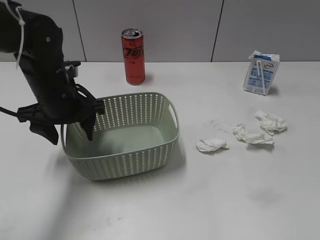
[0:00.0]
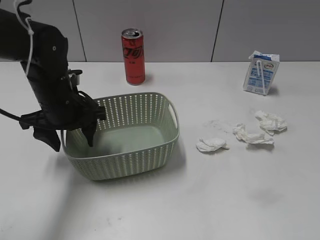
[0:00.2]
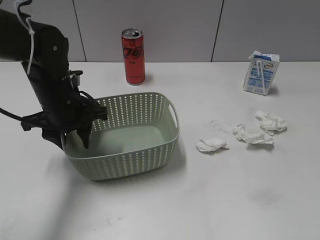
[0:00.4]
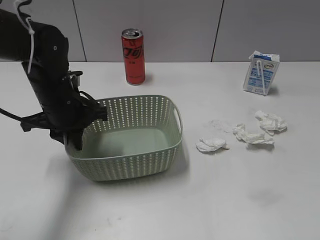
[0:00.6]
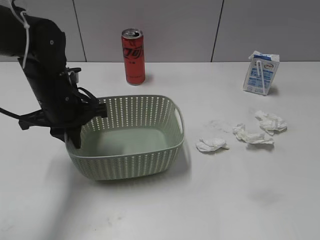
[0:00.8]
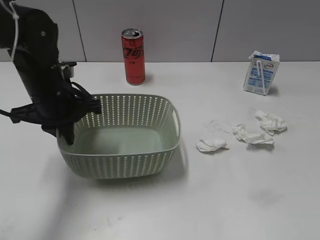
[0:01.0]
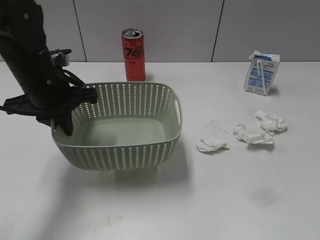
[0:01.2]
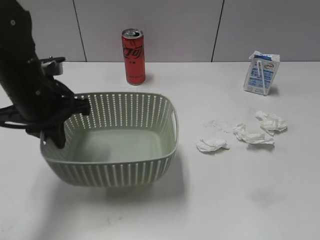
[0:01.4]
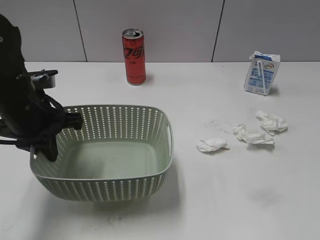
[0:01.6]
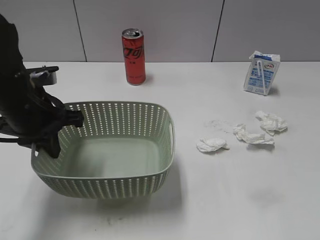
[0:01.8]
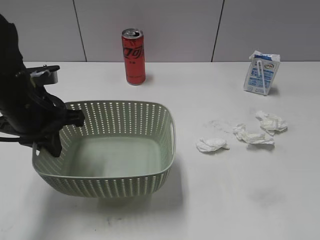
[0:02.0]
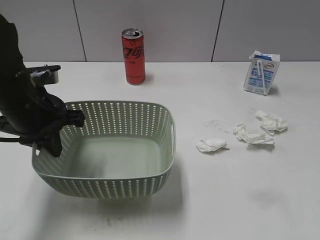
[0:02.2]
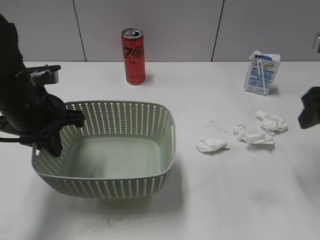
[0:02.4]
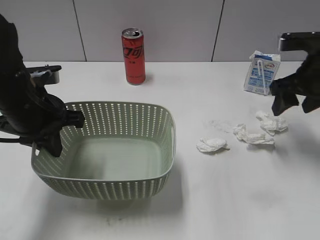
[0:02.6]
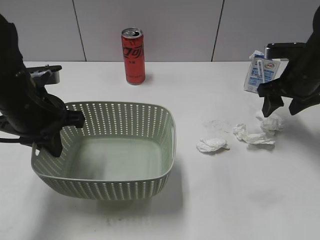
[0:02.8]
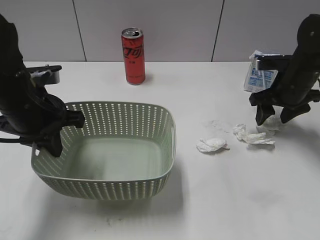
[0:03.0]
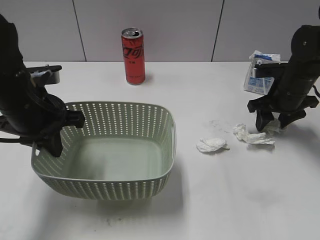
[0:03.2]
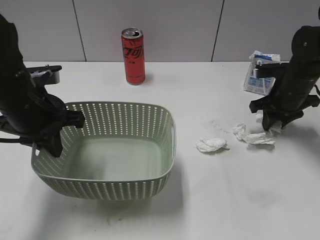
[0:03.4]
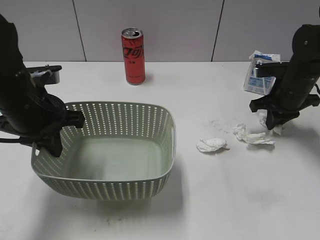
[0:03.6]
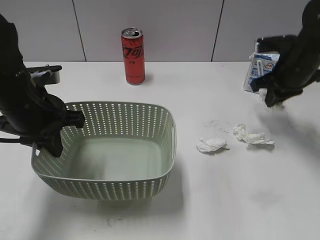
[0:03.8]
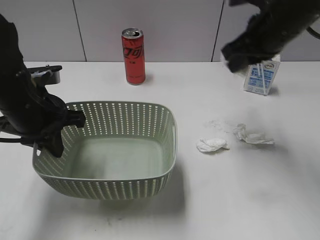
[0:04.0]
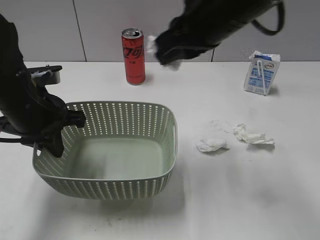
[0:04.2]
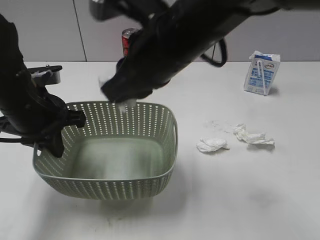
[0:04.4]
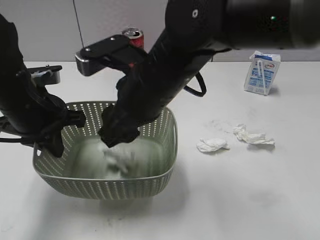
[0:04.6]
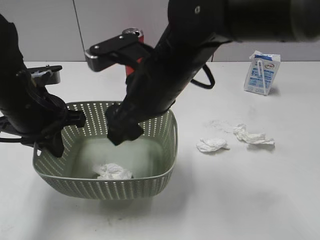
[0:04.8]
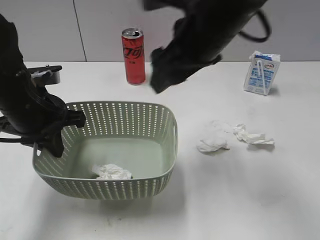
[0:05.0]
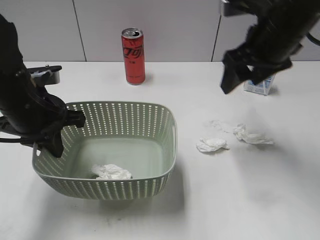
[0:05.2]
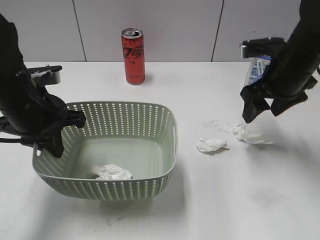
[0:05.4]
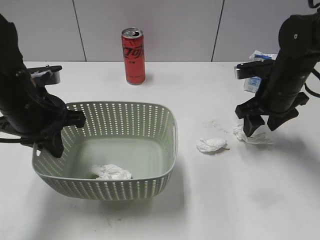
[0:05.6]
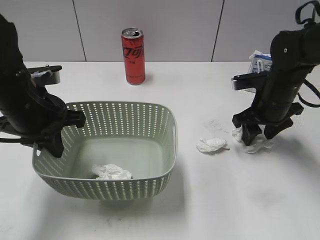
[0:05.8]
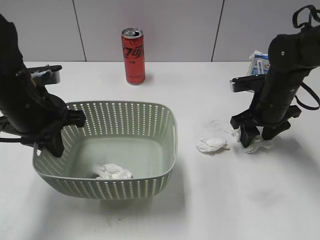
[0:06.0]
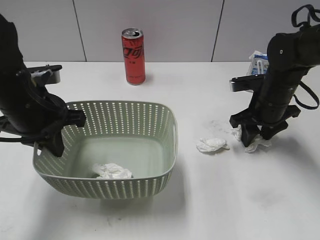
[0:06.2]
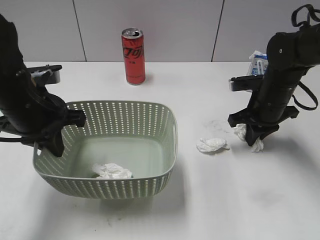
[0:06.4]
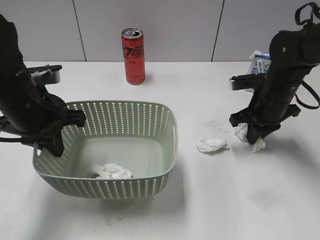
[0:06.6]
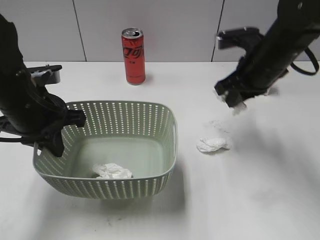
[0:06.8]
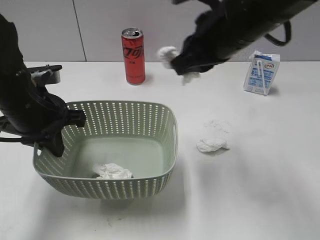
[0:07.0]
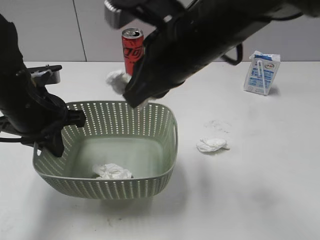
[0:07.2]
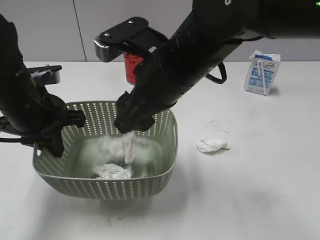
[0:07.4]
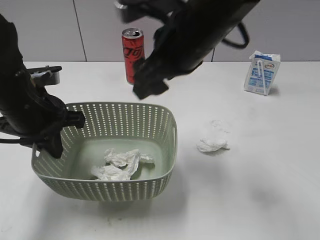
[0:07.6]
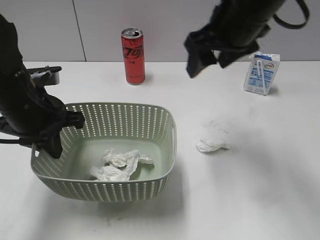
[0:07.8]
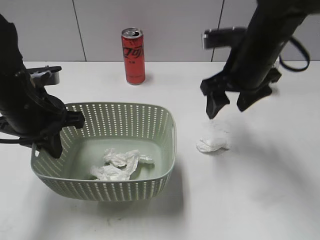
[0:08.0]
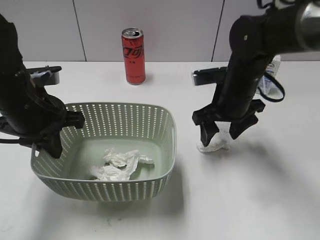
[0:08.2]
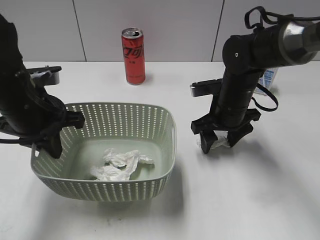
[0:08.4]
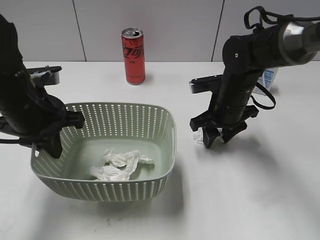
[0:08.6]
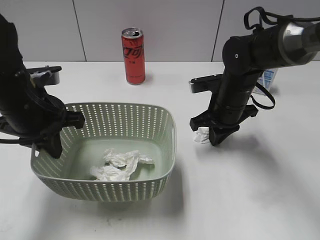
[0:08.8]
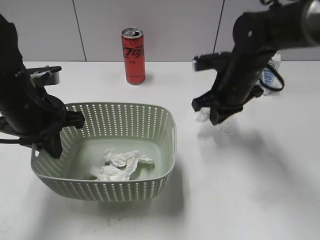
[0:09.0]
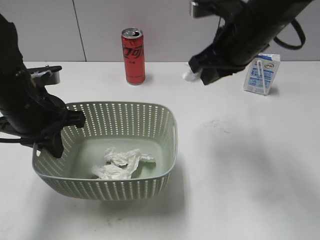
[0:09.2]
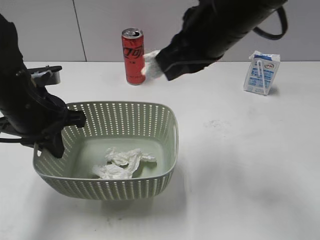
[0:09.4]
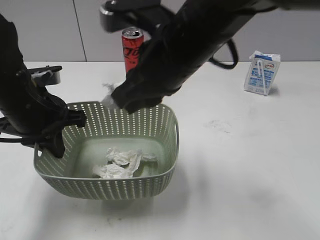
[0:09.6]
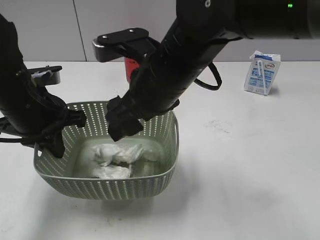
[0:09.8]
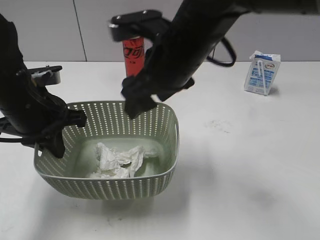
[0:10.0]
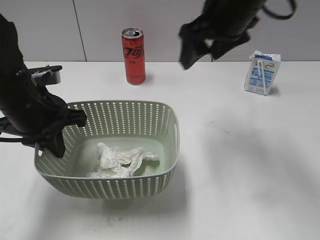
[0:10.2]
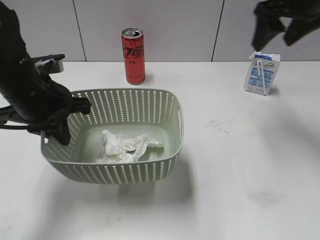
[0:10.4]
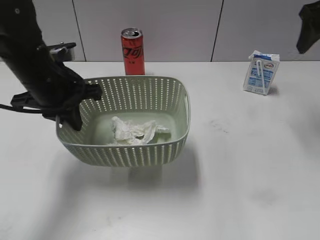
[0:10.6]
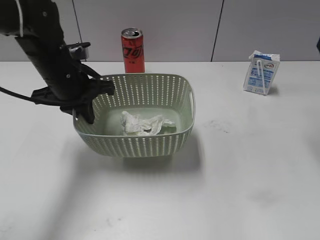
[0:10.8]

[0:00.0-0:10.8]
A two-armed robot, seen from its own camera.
Step, 0:00.0 to 0:00.8: Grasp the basket with left gripper.
Step, 0:01.0 to 0:01.8: Lift the basket with left gripper.
Step, 0:02.0 to 0:03.6: Grasp the waste paper with right gripper.
Step, 0:03.8 to 0:04.8: Place the waste paper in the basket with right gripper.
Step, 0:05.0 to 0:06.4: Grasp the waste paper with right gripper.
Step, 0:06.6 to 0:07.4: Place the waste paper in the basket with right gripper.
Step, 0:07.6 to 0:08.8: Grasp the waste paper with right gripper.
Step, 0:09.0 to 0:10.0: Place the waste paper in the basket with right gripper.
0:00.0 to 0:01.6: The left gripper travels backward by roughly 5 cm, and closes its fingers.
0:01.6 to 0:03.0: The right gripper goes about 40 cm forward.
0:03.0 to 0:04.6: The right gripper shifts approximately 30 cm to the left and backward, and closes and opens again.
0:04.6 to 0:06.2: The right gripper moves to the right, downward and forward, roughly 25 cm, and opens, then closes again.
0:06.2 to 0:07.8: The right gripper heads upward and to the left, covering some 20 cm, and closes, then opens again.
0:07.8 to 0:09.2: The right gripper goes downward and returns, roughly 20 cm each way, and closes its fingers.
0:09.2 to 0:10.8: The left gripper heads forward, covering approximately 5 cm, while the right gripper moves to the right and upward, roughly 20 cm, and opens its fingers.

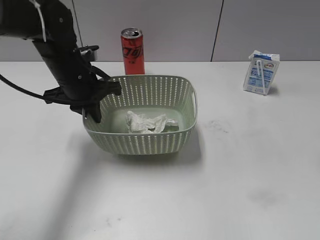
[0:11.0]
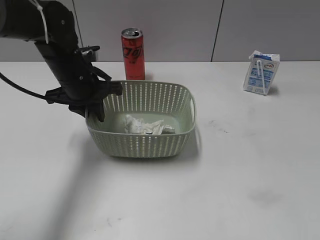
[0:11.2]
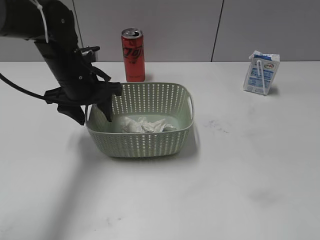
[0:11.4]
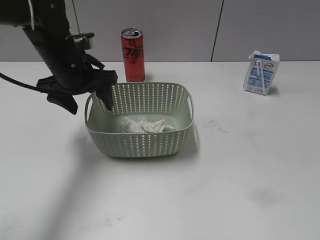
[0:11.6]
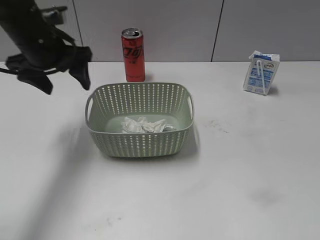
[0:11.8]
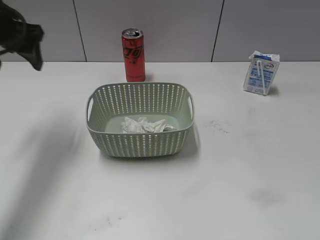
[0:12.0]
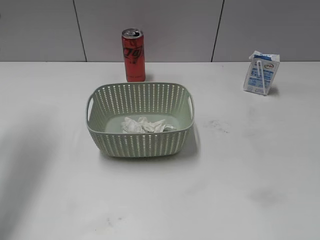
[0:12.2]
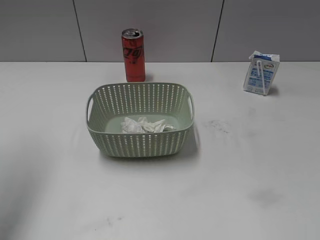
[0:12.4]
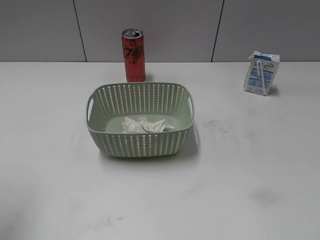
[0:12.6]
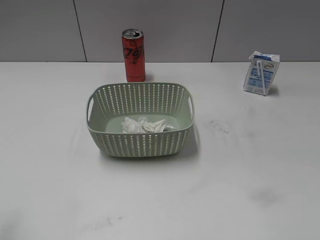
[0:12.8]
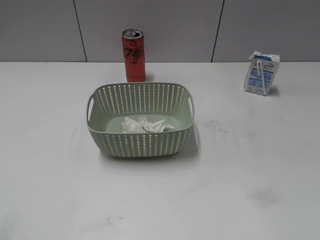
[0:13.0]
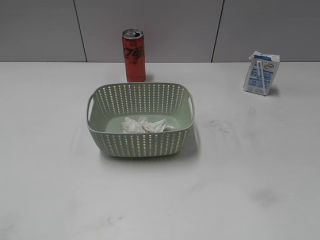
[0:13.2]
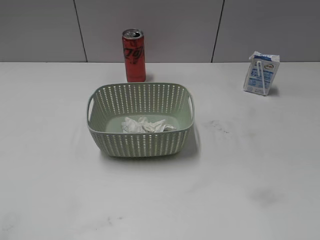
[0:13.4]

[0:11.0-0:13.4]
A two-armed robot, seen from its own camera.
0:11.0 to 0:12.2: The right gripper shifts roughly 25 cm backward. Meanwhile the left gripper goes roughly 20 cm to the left and upward, and opens its fingers.
0:12.2 to 0:13.4: The left gripper heads backward, covering approximately 35 cm.

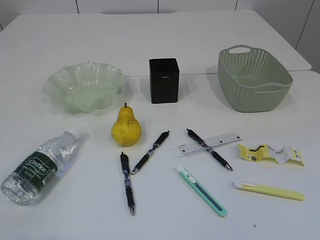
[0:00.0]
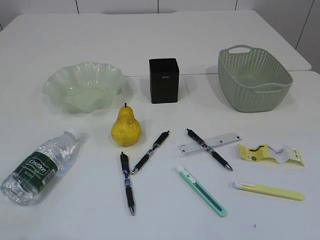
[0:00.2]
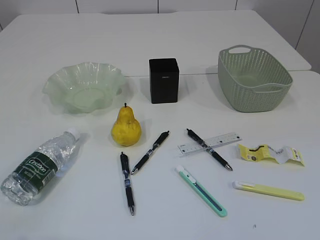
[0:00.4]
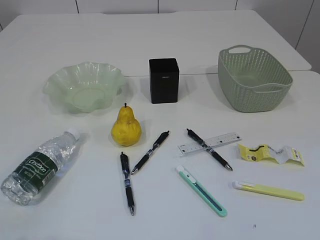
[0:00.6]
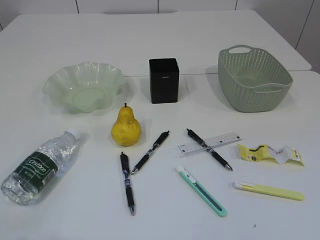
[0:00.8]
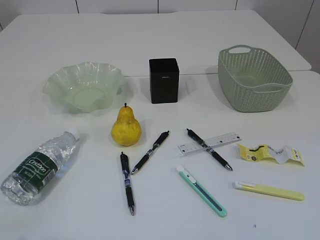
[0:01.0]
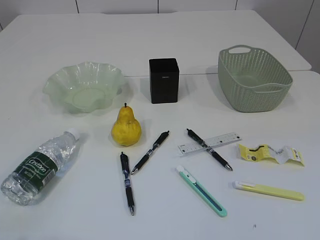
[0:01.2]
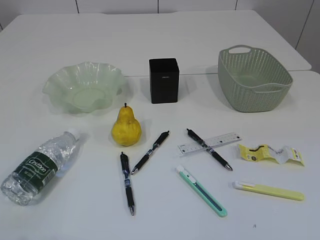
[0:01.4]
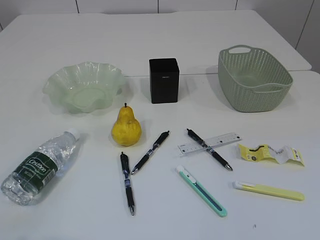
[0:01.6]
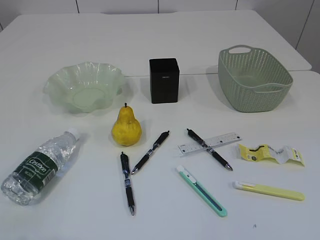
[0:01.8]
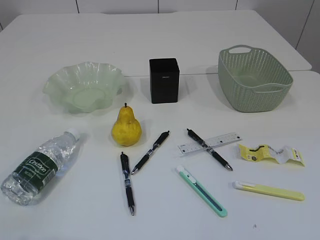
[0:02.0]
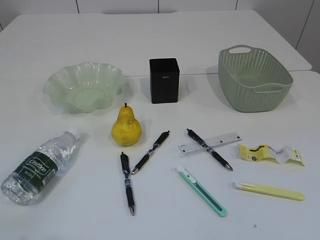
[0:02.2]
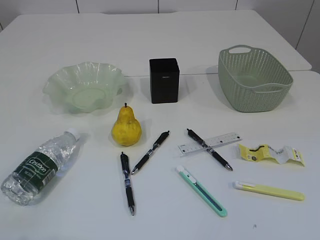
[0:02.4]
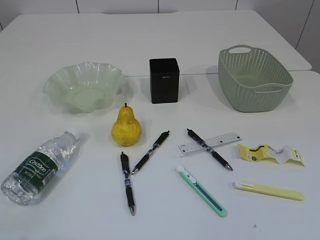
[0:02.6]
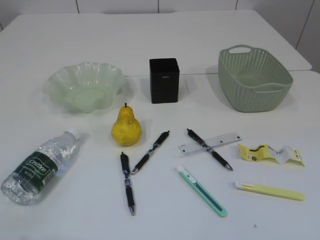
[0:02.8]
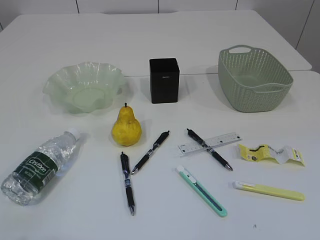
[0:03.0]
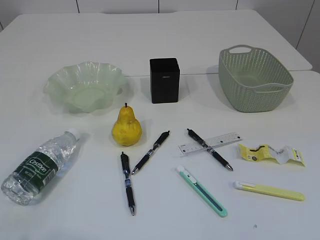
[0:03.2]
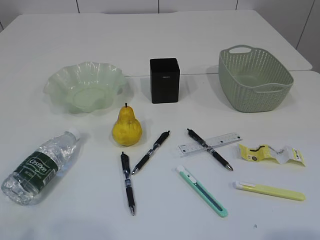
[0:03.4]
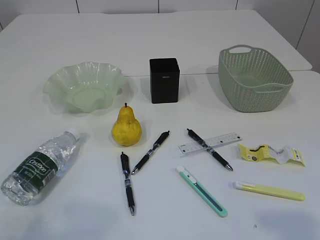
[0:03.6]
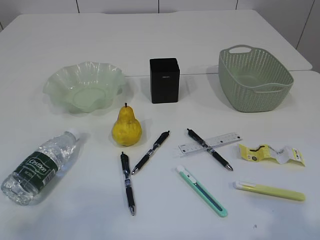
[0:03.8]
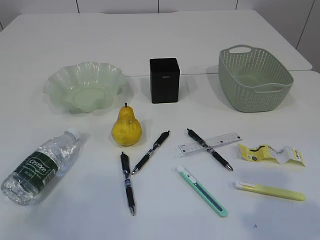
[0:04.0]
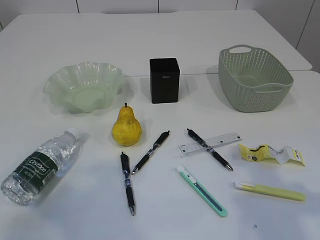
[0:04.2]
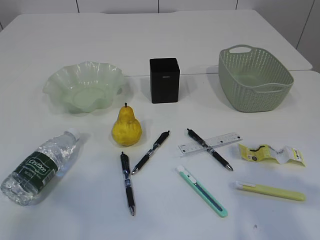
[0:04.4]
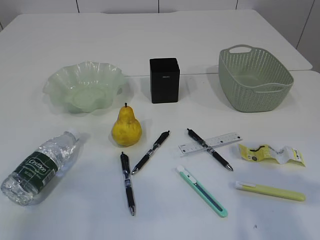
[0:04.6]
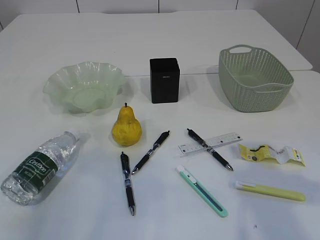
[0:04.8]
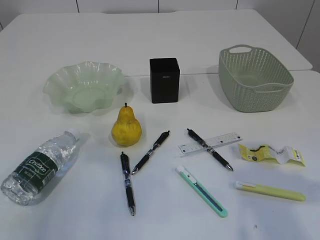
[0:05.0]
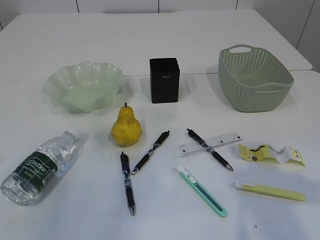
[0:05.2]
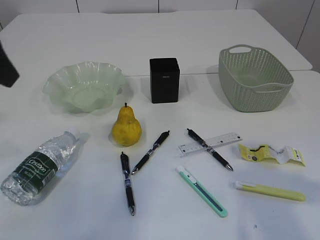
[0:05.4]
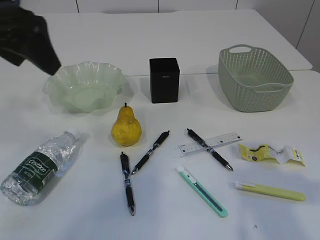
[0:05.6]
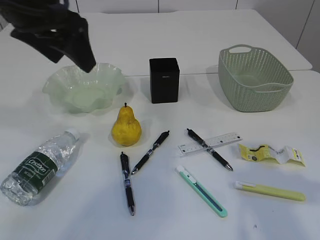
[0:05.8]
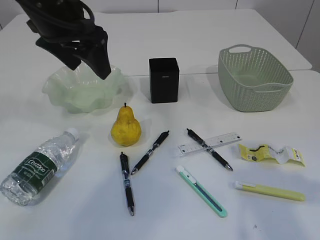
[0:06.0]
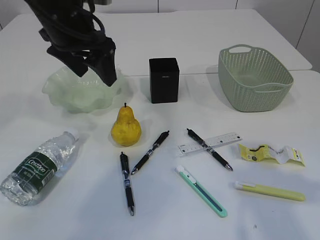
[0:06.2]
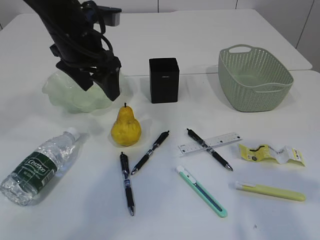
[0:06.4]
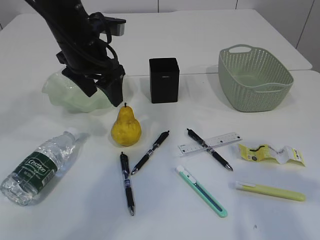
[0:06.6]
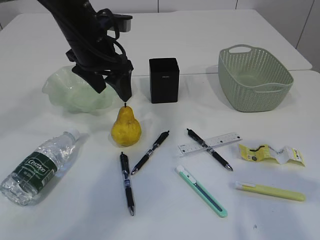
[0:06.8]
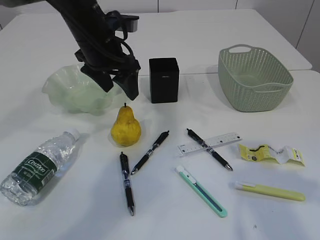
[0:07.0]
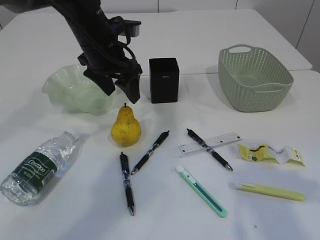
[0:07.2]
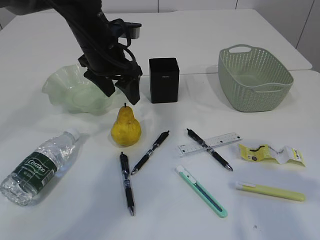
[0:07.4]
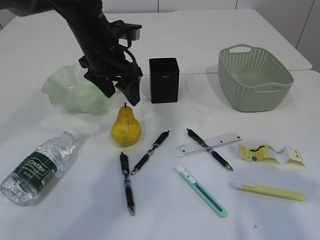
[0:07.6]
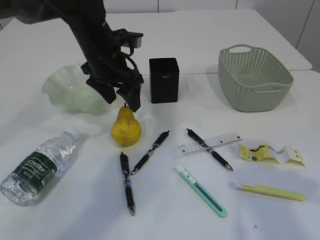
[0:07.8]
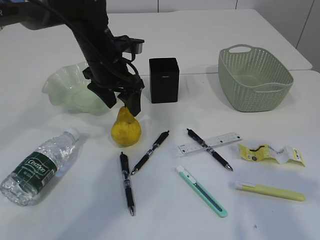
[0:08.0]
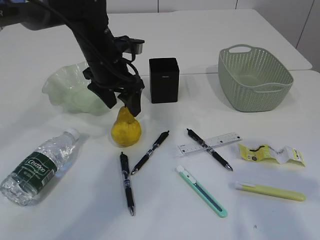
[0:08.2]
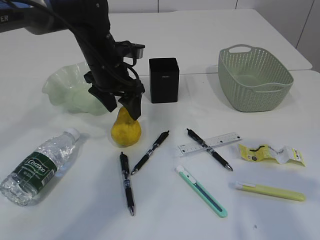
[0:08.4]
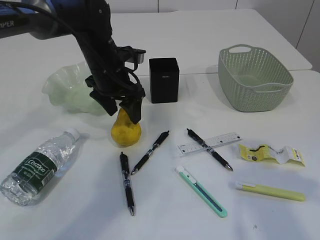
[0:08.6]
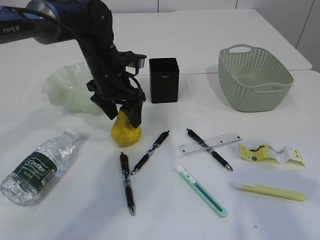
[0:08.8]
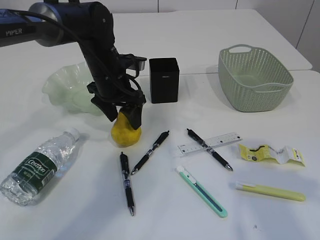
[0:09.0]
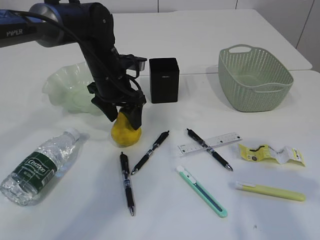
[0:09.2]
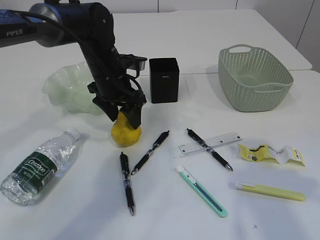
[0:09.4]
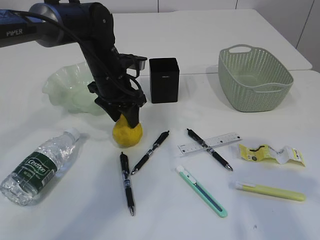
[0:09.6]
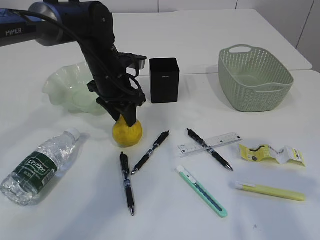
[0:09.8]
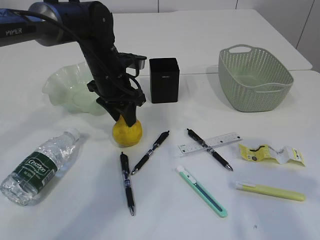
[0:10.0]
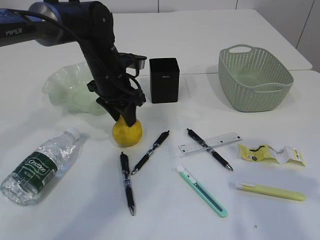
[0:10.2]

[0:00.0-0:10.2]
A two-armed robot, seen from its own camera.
0:01.4 to 0:03.0: Neither gripper changes place.
0:03.0 to 0:04.4: The left gripper shifts some 15 cm forward and upward. Meanwhile the right gripper is displaced forward by some 20 cm.
0:04.4 to 0:05.8: The left gripper goes about 25 cm forward and to the right.
0:05.8 to 0:07.2: The left gripper goes approximately 15 cm downward, forward and to the right.
0:07.2 to 0:08.8: The left gripper is displaced downward by approximately 5 cm.
0:08.8 to 0:10.2: The left gripper closes.
